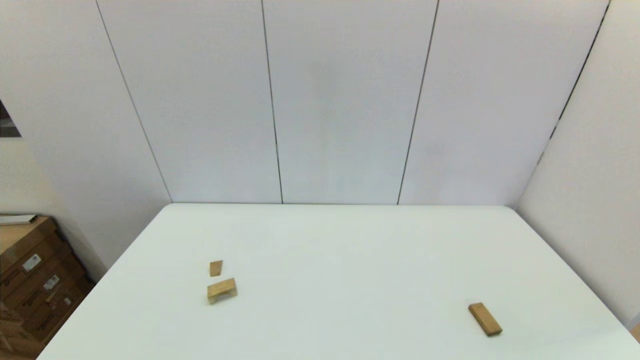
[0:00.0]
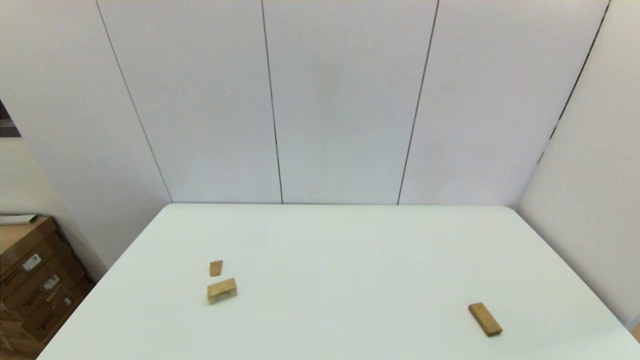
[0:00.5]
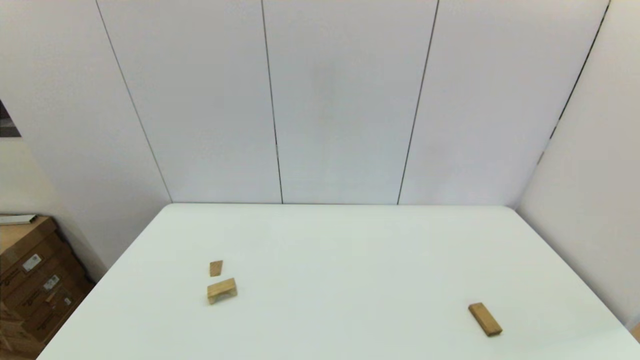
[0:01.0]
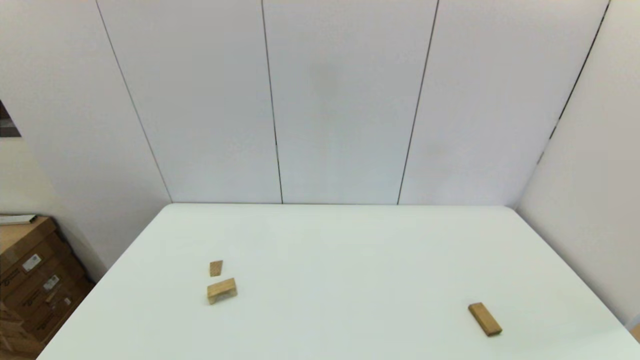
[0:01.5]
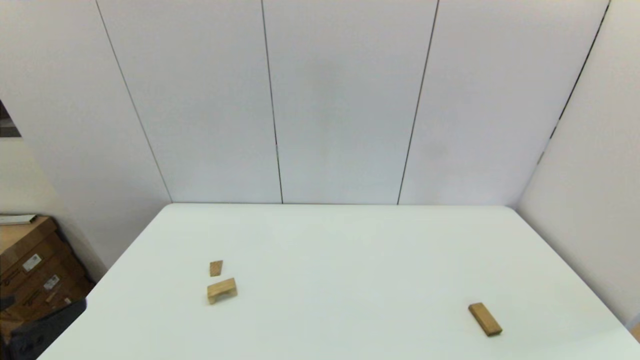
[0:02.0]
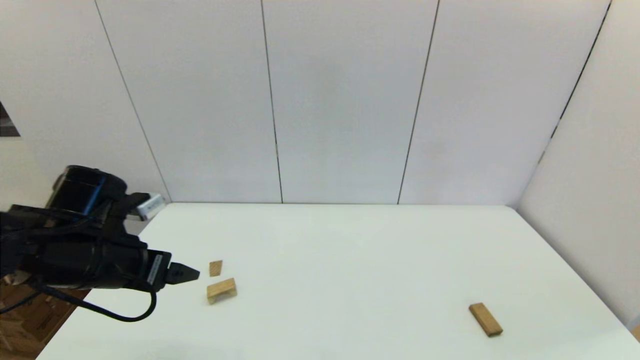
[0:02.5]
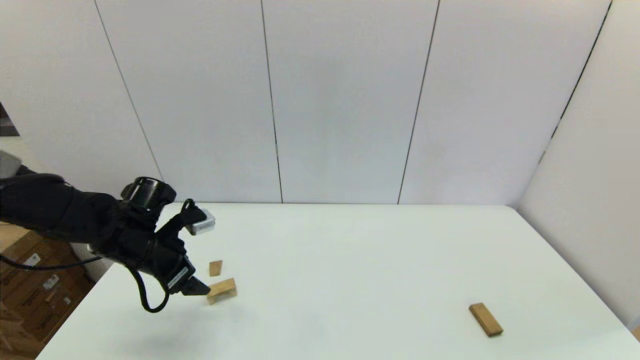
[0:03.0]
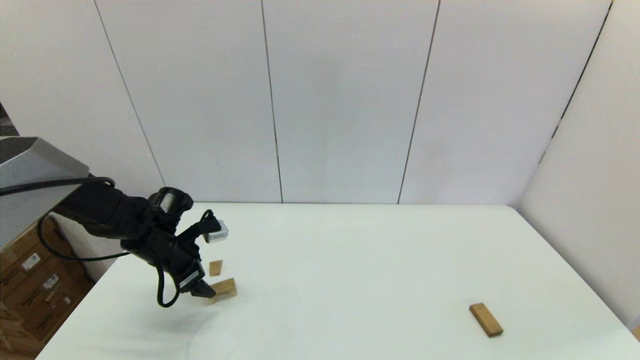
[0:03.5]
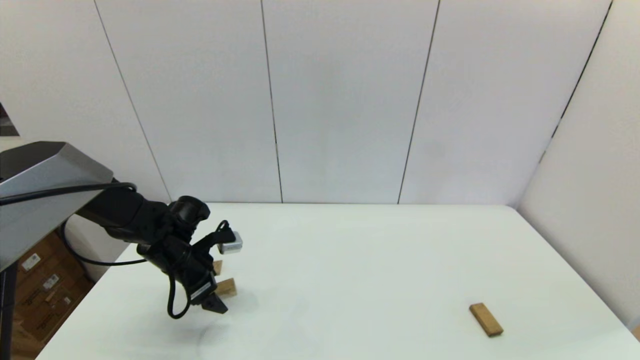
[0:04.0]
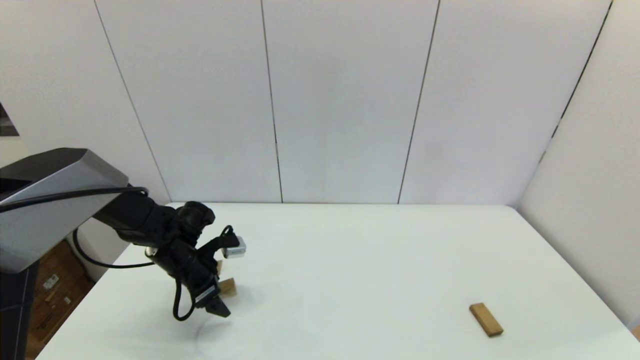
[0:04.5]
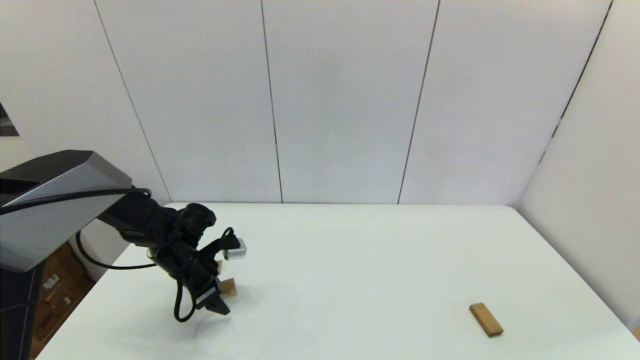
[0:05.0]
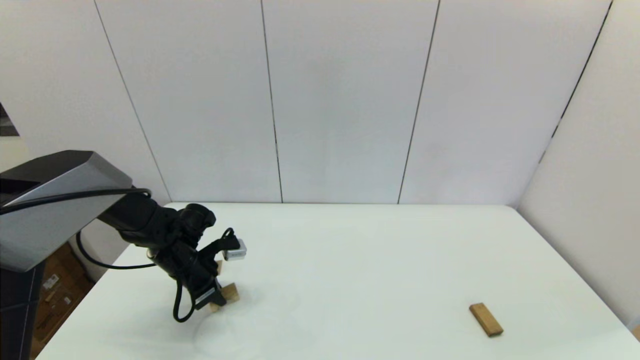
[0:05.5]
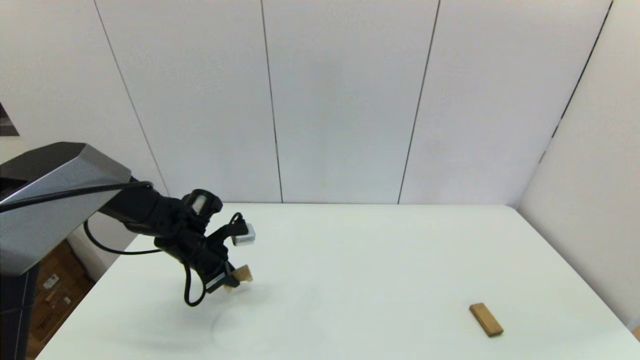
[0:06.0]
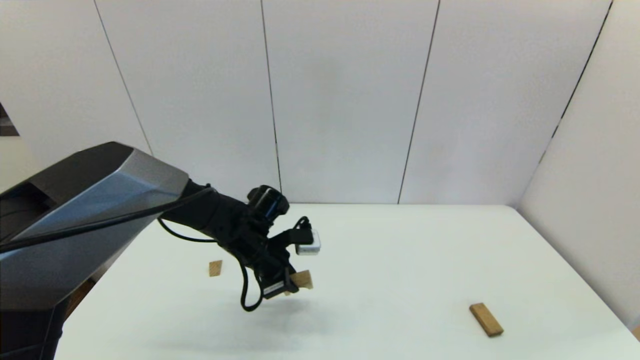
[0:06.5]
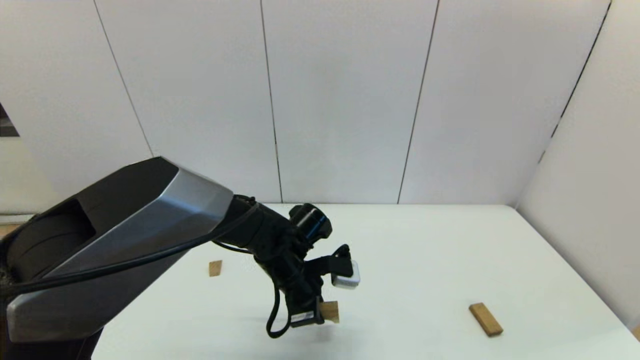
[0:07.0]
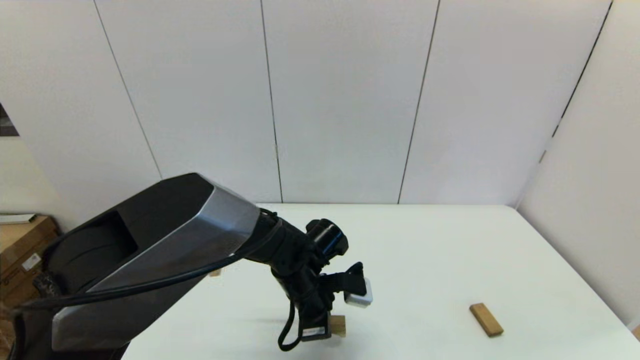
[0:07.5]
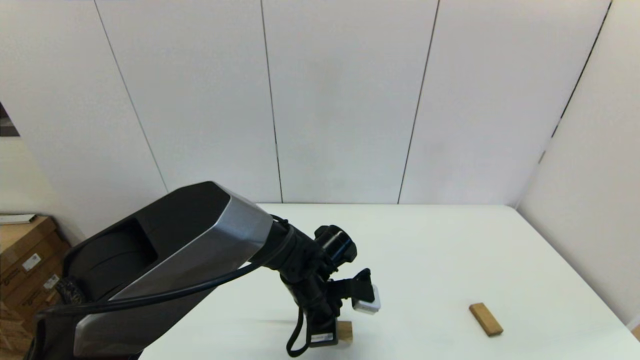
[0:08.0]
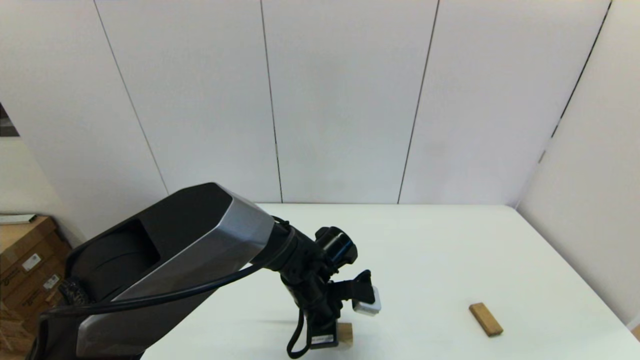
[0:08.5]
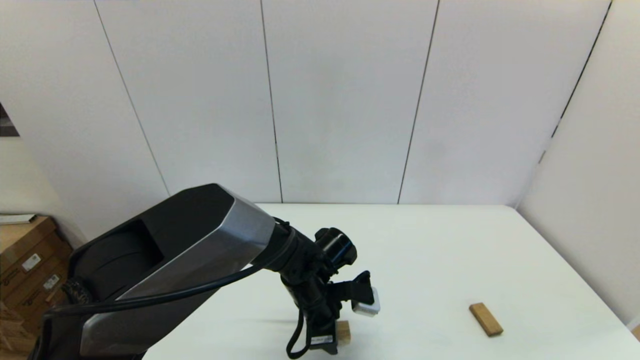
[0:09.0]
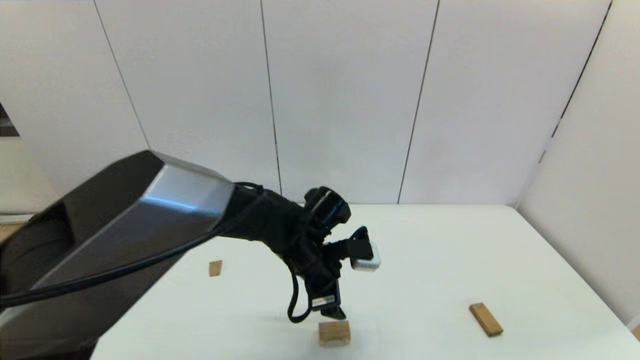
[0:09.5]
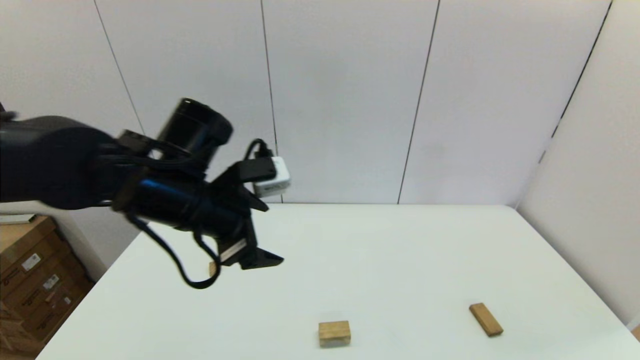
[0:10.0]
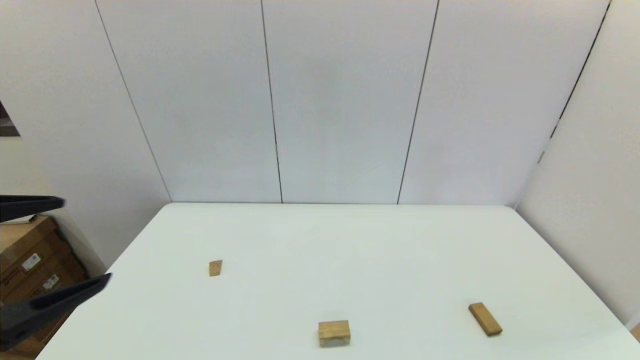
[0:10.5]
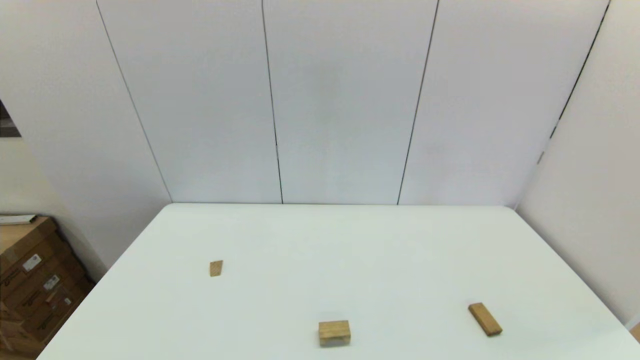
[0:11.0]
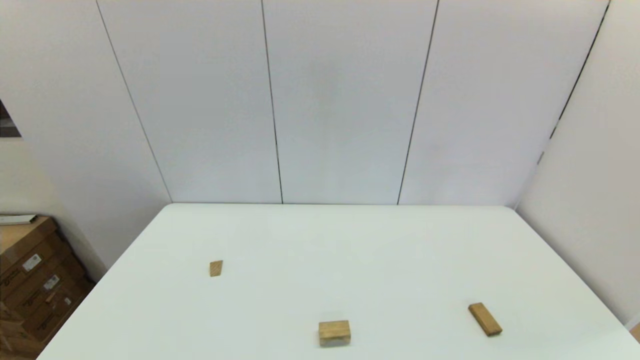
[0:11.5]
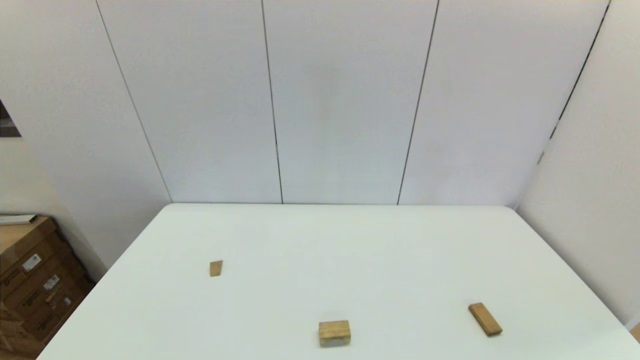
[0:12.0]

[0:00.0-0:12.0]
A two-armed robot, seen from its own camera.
Task of the whole recording: place the arched building blocks in the center of the table, set up the rectangular building blocks, and then set up the triangular building blocks.
Step, 0:02.0 to 0:05.0: Grasp the arch-shaped block with the left gripper.
Step, 0:05.5 to 0:08.5: Place the arch-shaped block in the center of view with the left gripper.
0:02.0 to 0:04.0: The left gripper travels forward and downward by some 30 cm.
0:04.0 to 0:06.0: The left gripper closes.
0:06.0 to 0:08.0: The left gripper travels to the right by some 20 cm.
0:08.0 to 0:10.0: The left gripper shifts approximately 25 cm upward and to the left, and opens.
0:10.0 to 0:12.0: The left gripper shifts roughly 35 cm backward, to the left and downward.

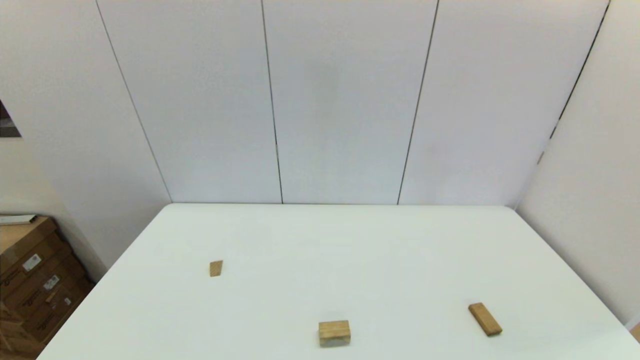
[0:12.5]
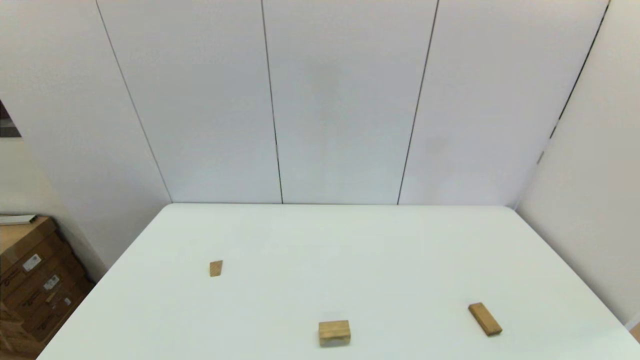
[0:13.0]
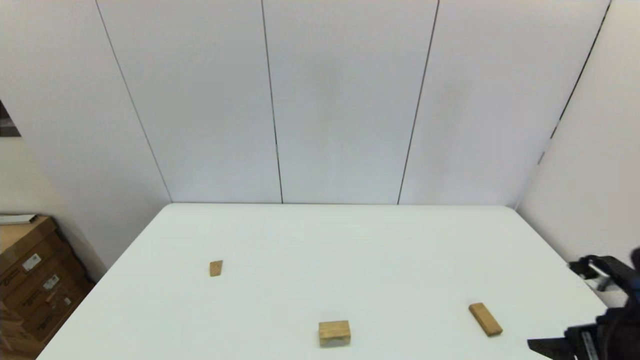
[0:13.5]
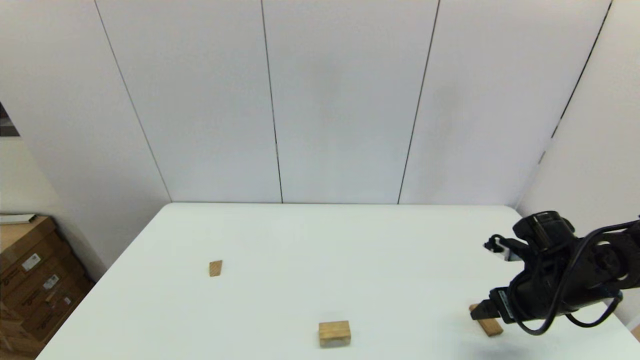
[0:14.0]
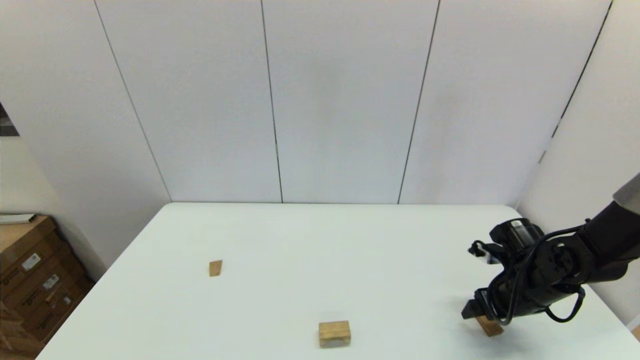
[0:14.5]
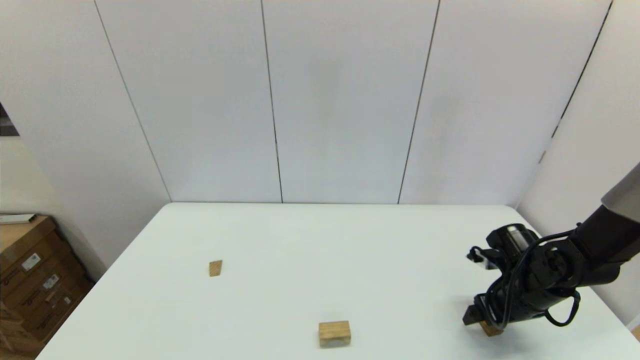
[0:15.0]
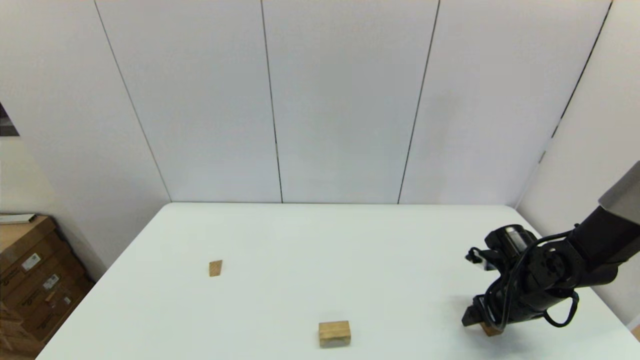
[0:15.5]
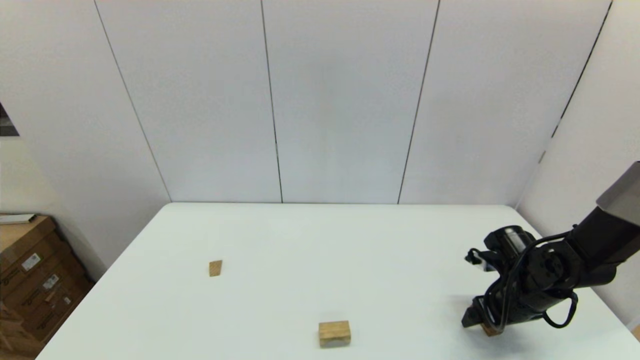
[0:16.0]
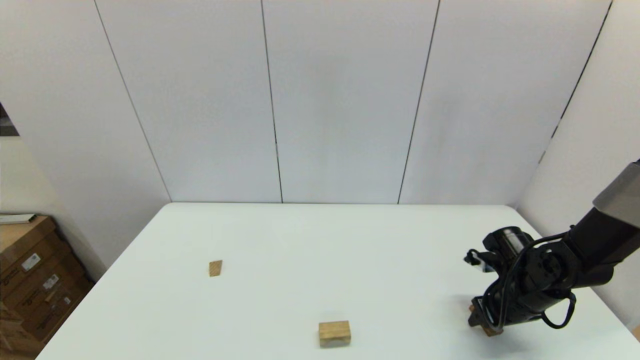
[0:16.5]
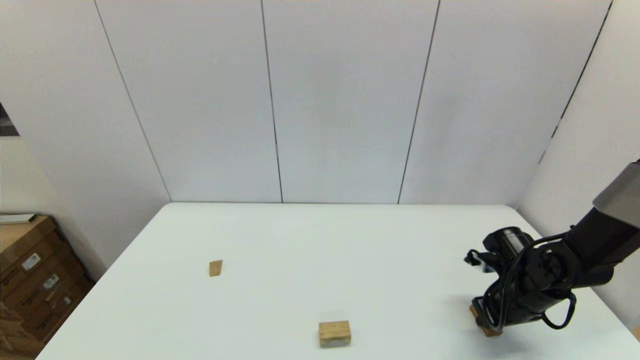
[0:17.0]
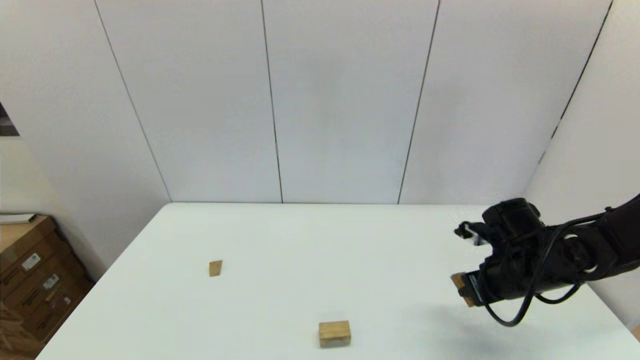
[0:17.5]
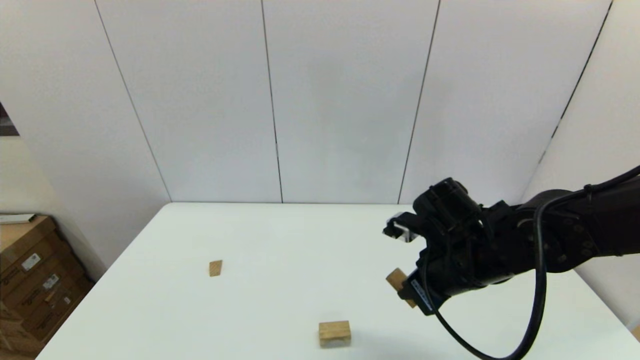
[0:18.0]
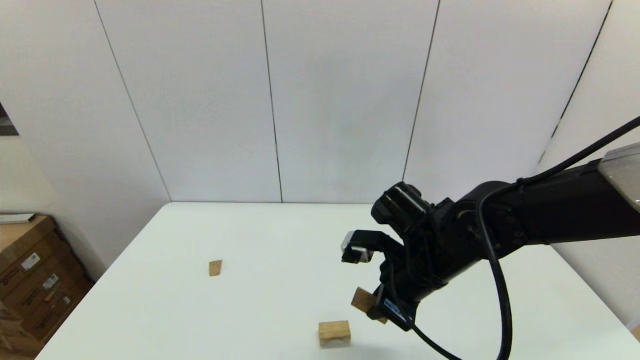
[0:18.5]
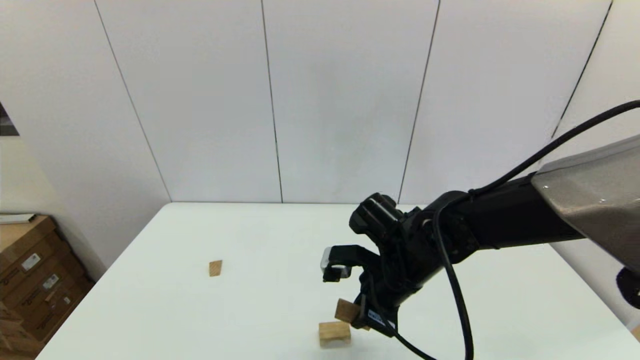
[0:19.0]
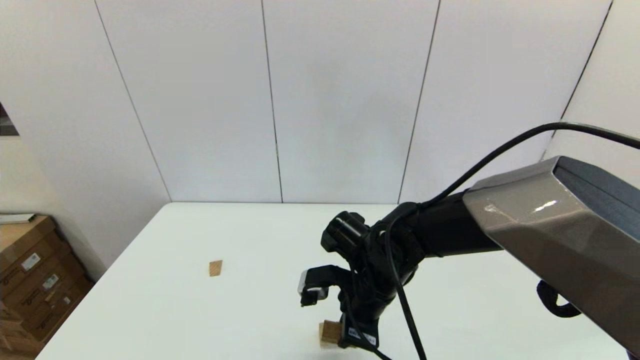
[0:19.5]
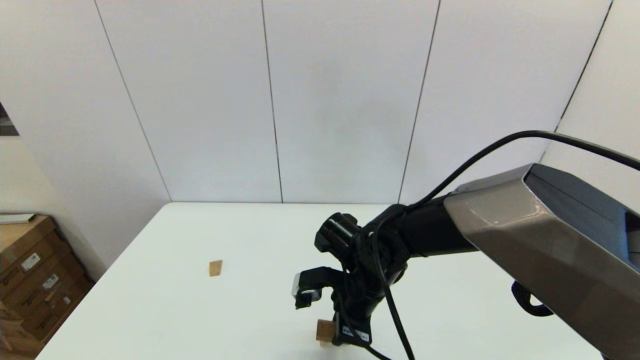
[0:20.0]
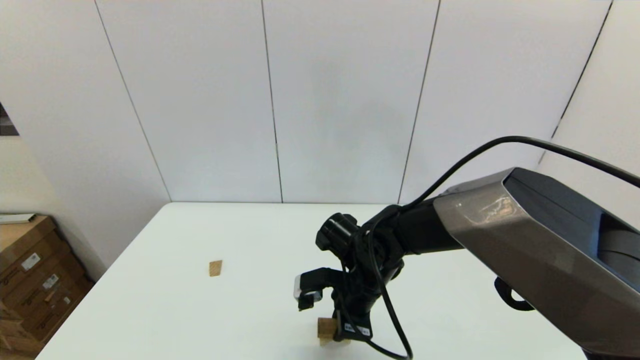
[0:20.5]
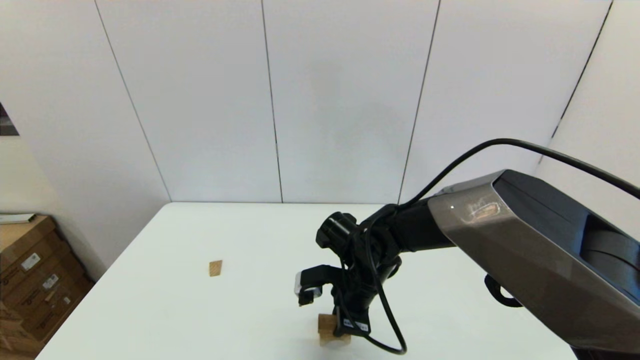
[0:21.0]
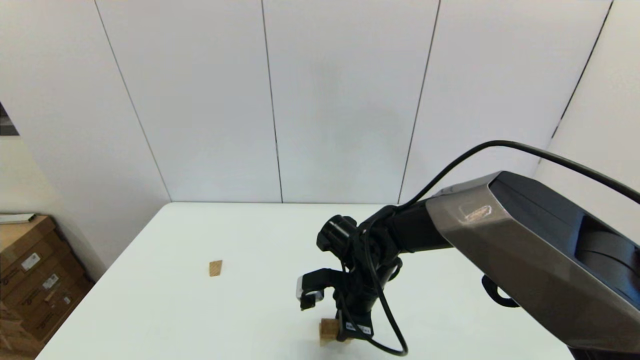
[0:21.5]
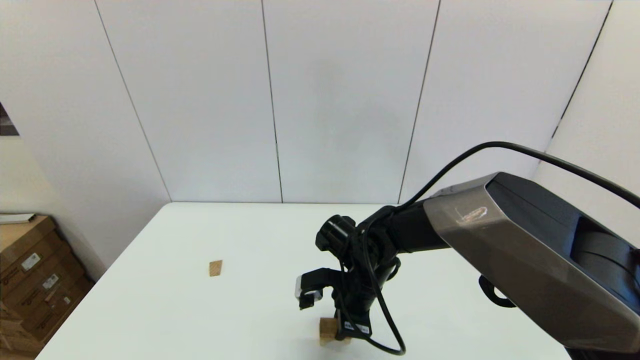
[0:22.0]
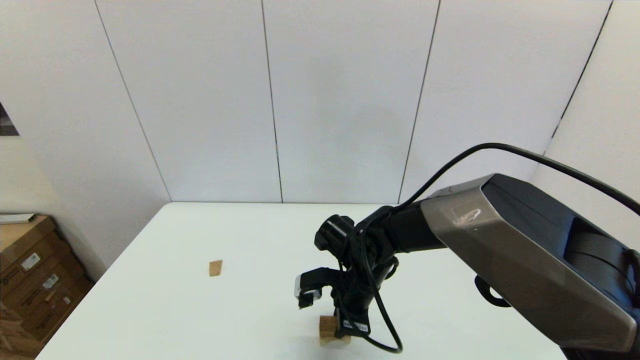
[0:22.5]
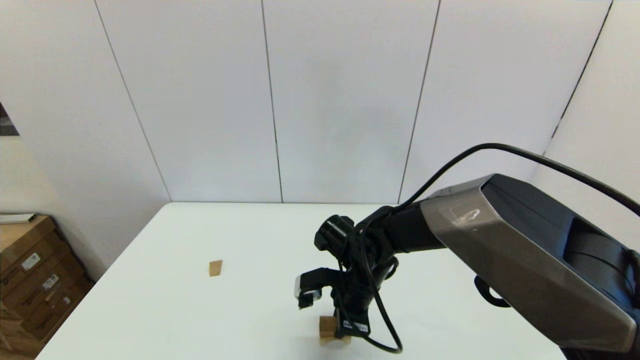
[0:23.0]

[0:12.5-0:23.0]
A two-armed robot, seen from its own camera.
Task of the whole recording: place the arched building blocks in the center of the table, set up the rectangular building blocks, and then set up the triangular building blocks.
Step, 0:12.5 to 0:17.0: Grasp the box-shaped block with the right gripper.
0:12.5 to 0:14.5: The right gripper heads forward, covering some 30 cm.
0:14.5 to 0:16.5: The right gripper closes up.
0:16.5 to 0:19.0: The right gripper is displaced to the left and upward by some 25 cm, and closes its fingers.
0:19.0 to 0:21.0: The right gripper is displaced downward by about 5 cm.
0:21.0 to 0:23.0: Neither gripper changes place.
